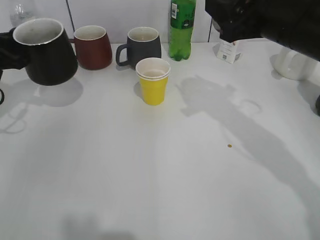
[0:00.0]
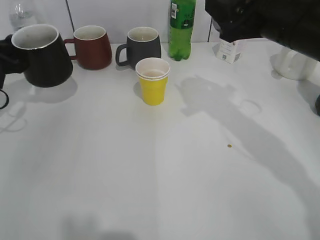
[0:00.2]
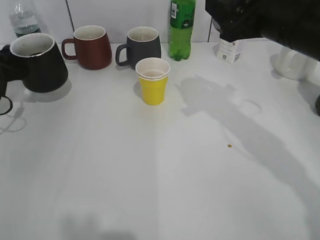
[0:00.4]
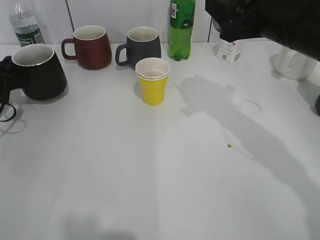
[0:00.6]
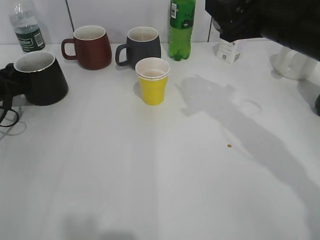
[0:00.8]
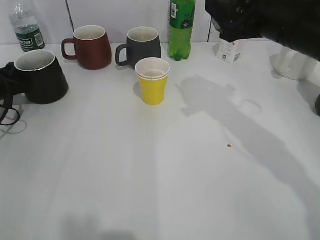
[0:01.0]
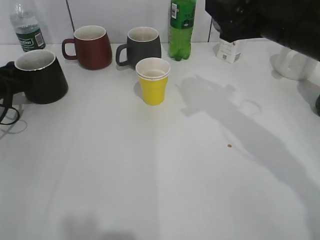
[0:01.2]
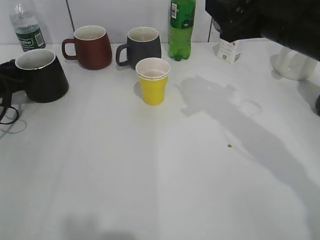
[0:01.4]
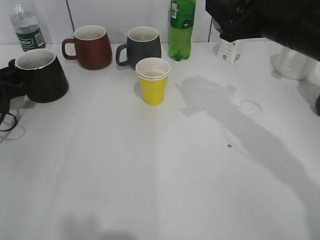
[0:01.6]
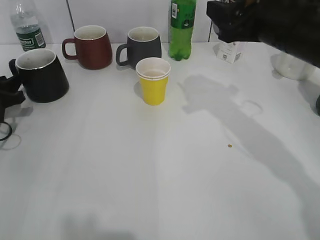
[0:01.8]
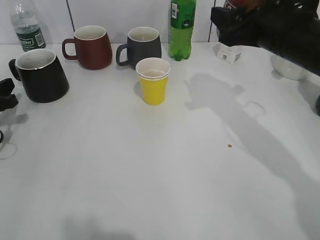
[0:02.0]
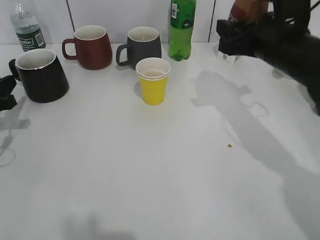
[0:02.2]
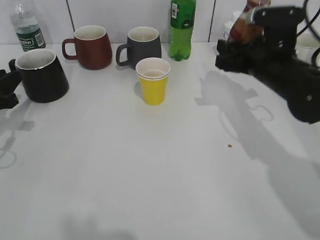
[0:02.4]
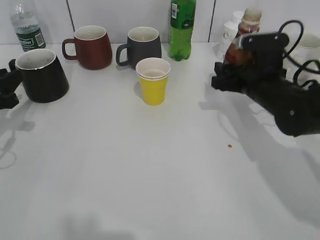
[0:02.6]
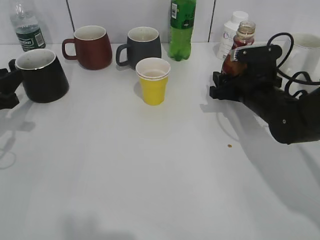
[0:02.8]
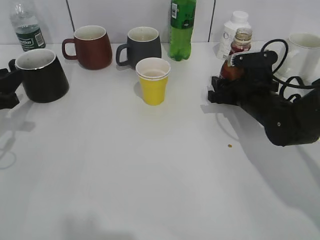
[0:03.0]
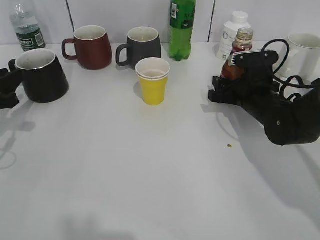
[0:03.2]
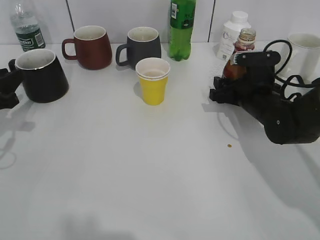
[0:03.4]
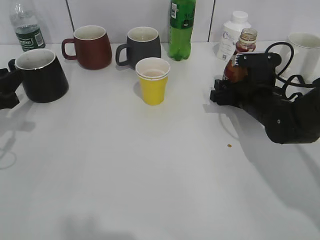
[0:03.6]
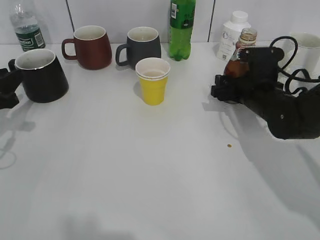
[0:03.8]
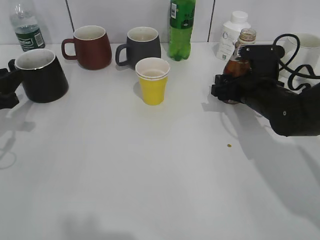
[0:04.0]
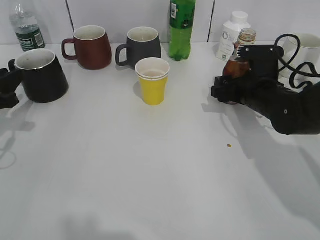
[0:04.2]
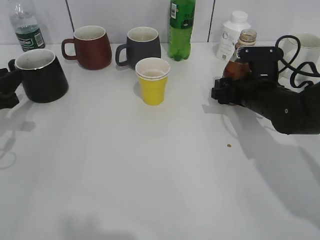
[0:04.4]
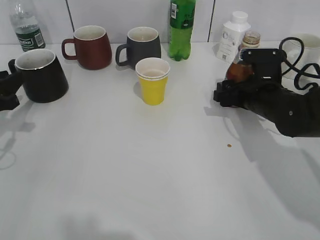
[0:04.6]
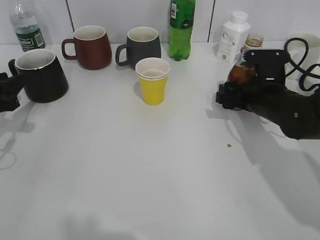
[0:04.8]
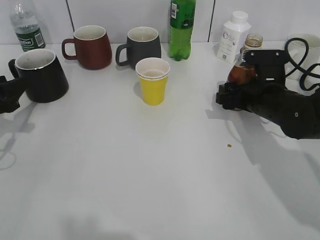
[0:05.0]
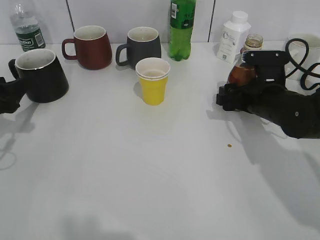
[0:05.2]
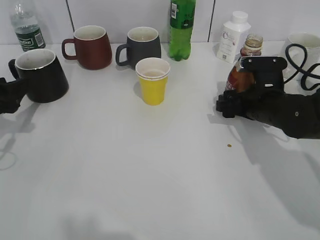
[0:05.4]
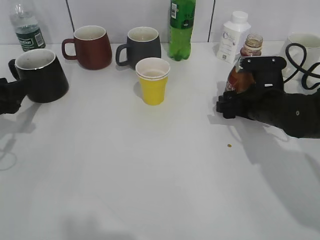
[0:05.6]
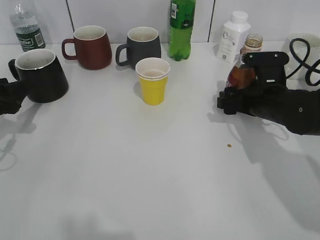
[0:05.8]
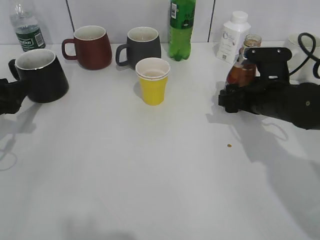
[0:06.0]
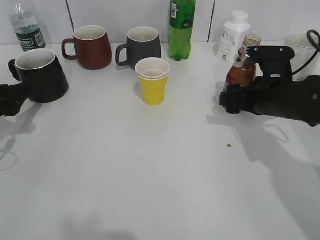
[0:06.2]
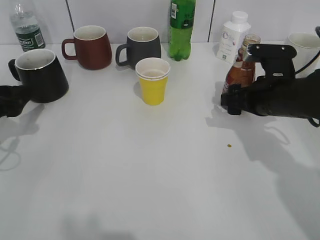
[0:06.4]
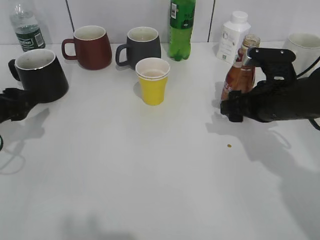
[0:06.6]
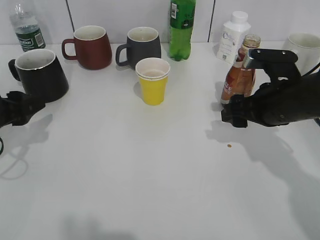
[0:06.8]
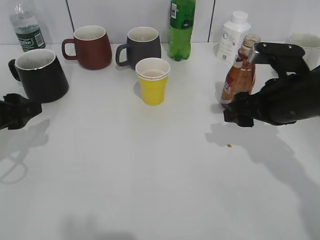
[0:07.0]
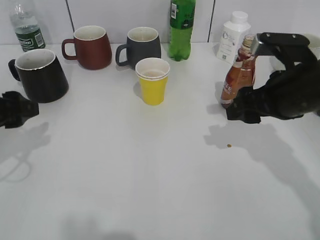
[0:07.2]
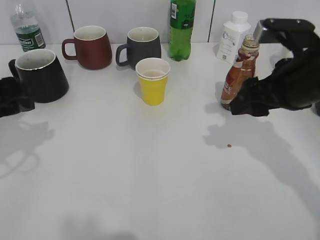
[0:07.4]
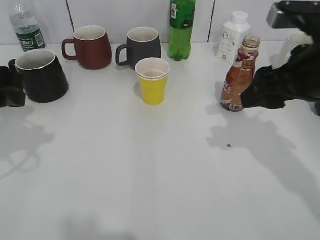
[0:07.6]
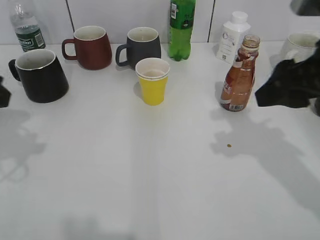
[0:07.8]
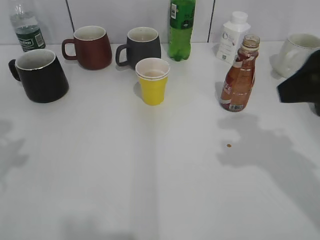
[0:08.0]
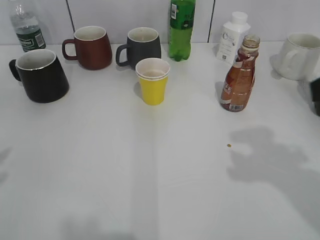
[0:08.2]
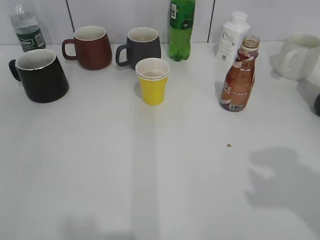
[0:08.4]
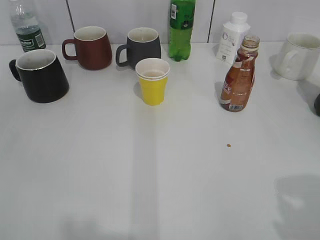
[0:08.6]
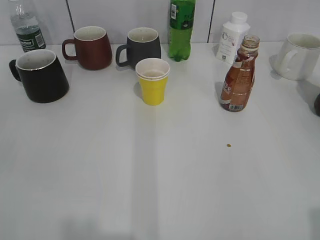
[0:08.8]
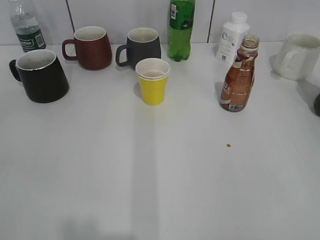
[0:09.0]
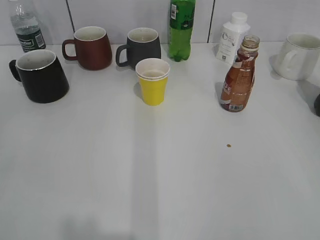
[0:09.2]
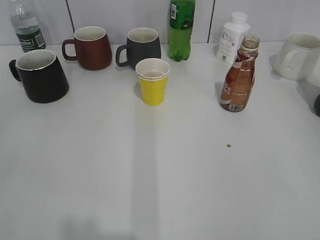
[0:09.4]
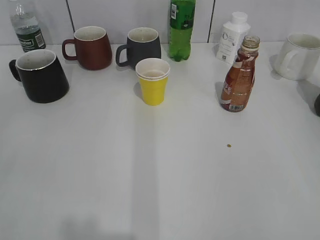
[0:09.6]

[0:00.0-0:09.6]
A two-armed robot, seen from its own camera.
Step, 0:00.0 to 0:01.8: Place the black cup on the table with left gripper.
Step, 0:02.0 to 0:06.0: Place the coffee bottle on the table with right gripper.
0:00.0 to 0:01.6: The left gripper travels downward by some 10 cm, and opens its fingers.
0:01.6 to 0:03.2: The left gripper heads backward, covering about 10 cm. The right gripper goes about 15 cm downward.
0:03.2 to 0:04.8: The grippers stay close to where they were, moving slightly.
0:04.8 to 0:06.4: There are only small adjustments of the grippers.
0:06.4 to 0:08.0: Both grippers travel together upward and backward, about 20 cm.
0:08.0 to 0:09.6: The right gripper shifts approximately 20 cm backward and to the right, and closes.
